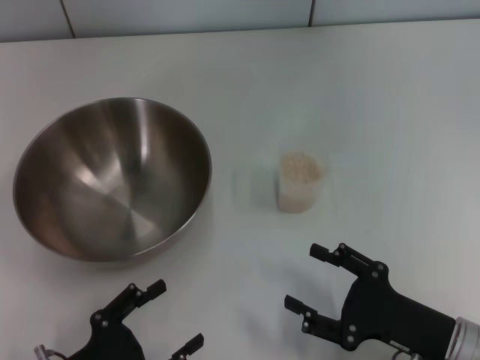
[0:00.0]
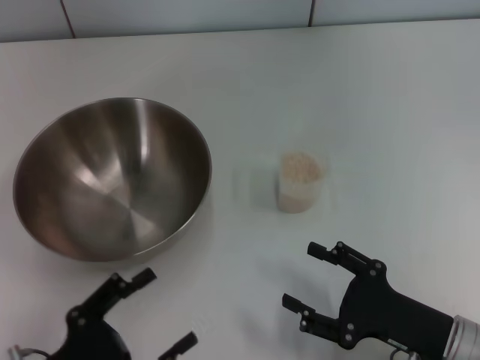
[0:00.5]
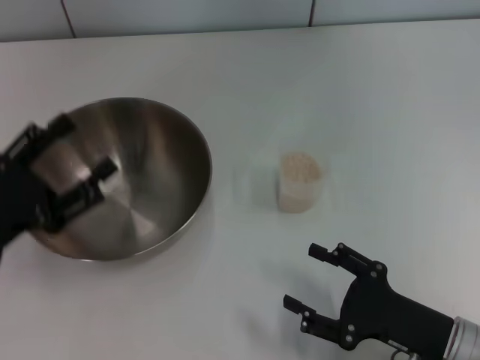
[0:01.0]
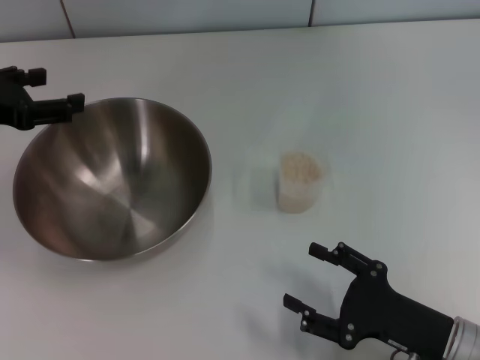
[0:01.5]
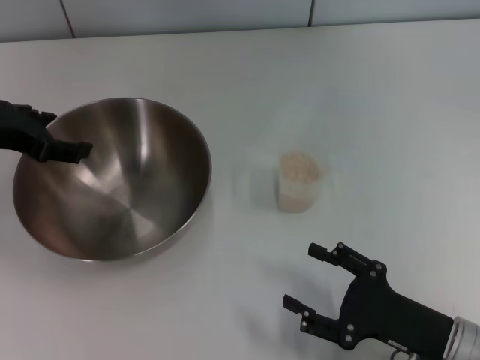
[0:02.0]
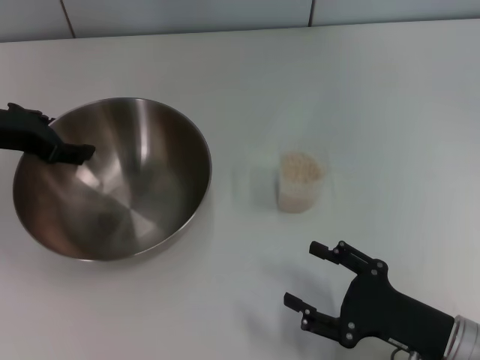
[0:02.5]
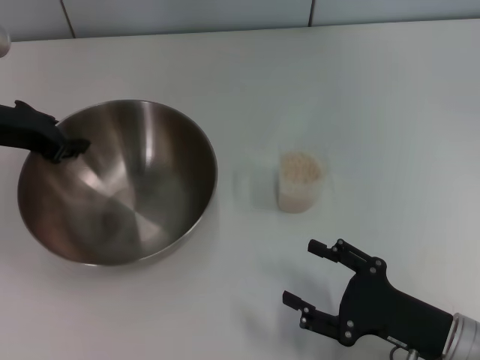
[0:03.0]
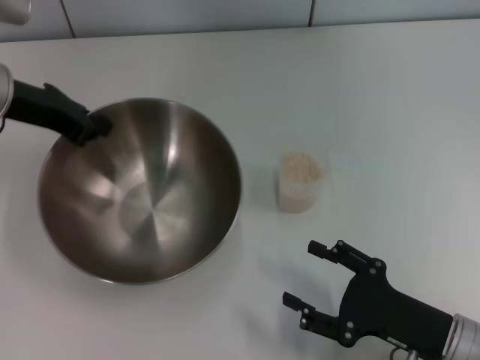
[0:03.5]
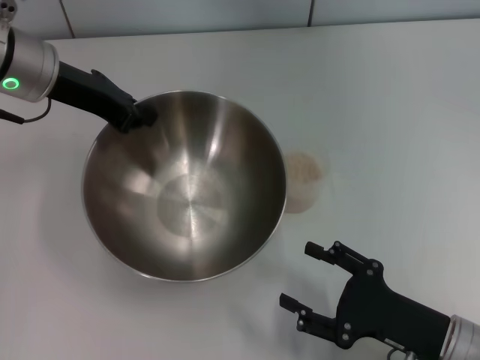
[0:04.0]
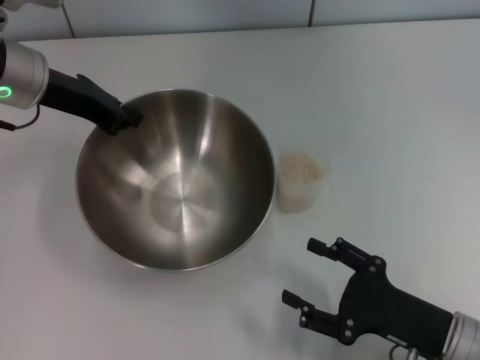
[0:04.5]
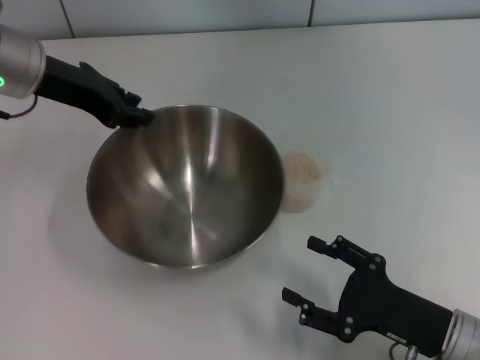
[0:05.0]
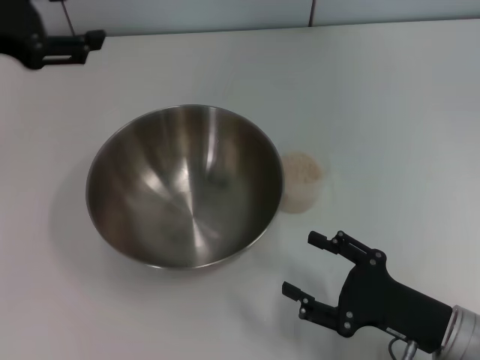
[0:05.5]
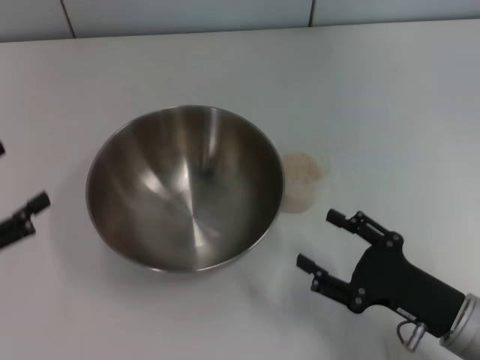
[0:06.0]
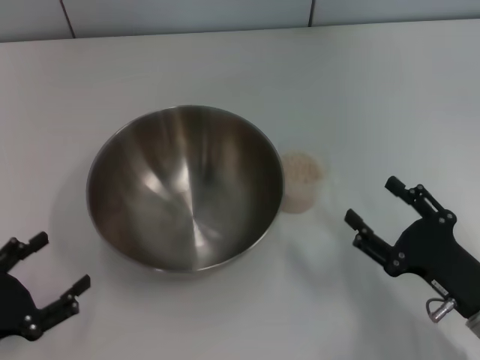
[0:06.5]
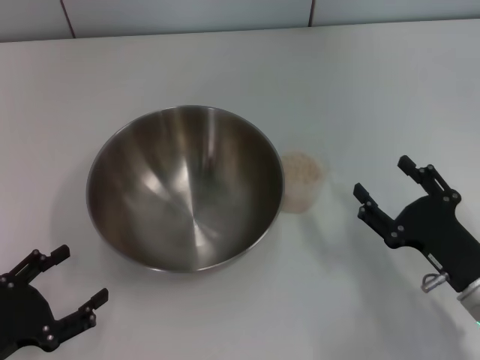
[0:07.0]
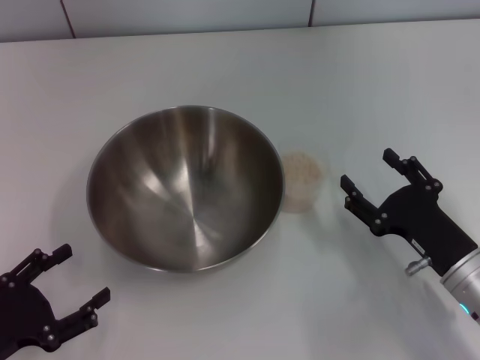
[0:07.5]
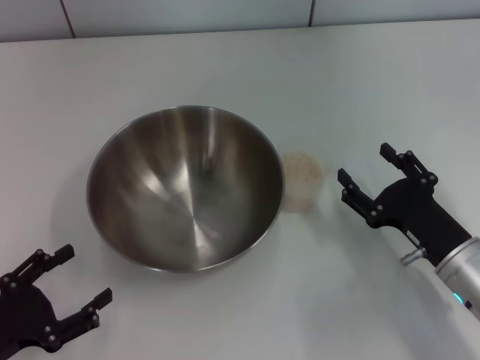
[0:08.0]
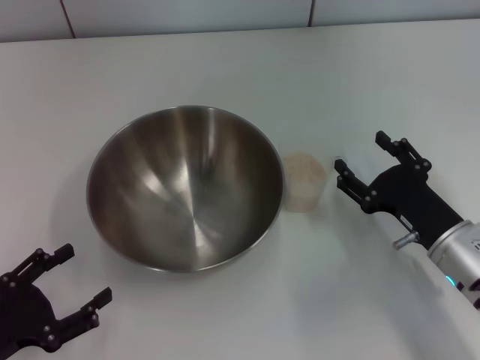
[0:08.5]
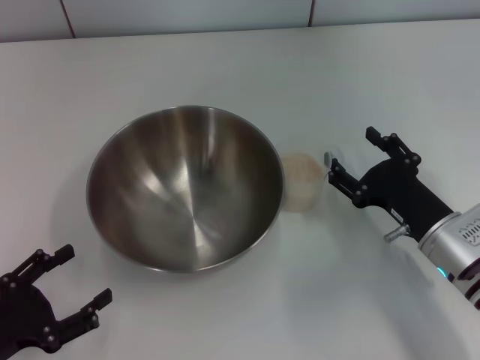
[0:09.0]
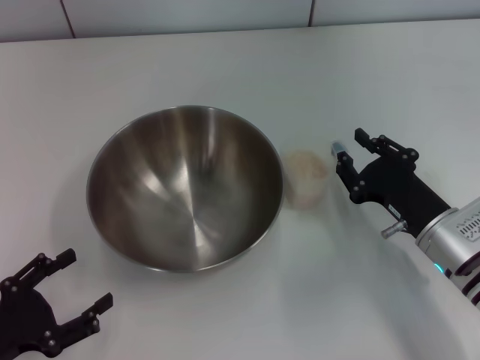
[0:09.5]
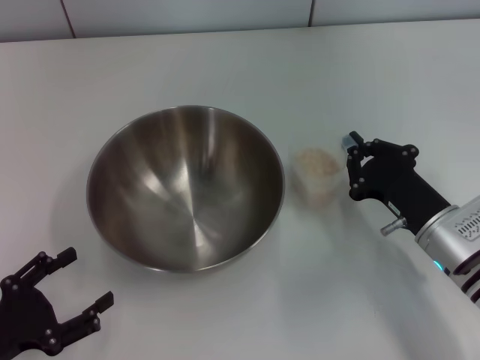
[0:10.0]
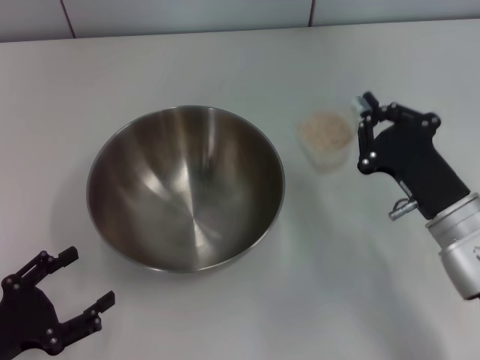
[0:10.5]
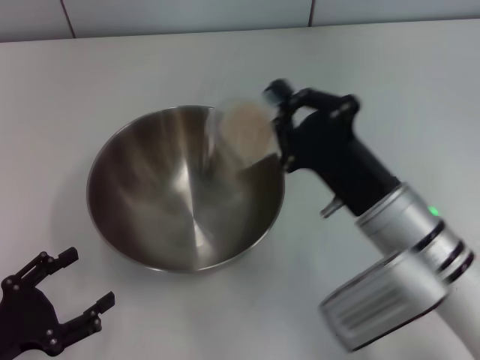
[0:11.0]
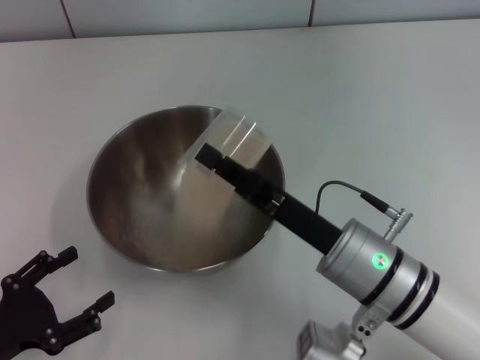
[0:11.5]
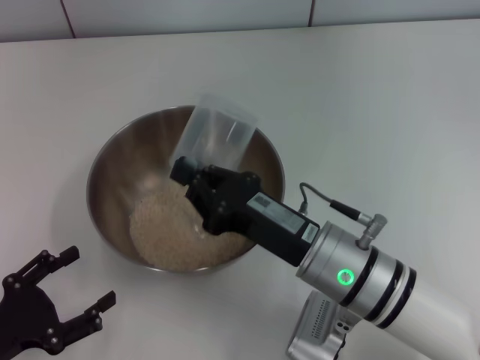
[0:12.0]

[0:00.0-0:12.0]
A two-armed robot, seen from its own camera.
Task of the whole recording: Place the bowl in the middle of the table with one hand and pour the rice from the grain cup into it with the other hand.
Step, 0:00.0 to 0:03.5: Pick up the bowl with the left gripper.
Step, 0:04.0 to 0:05.0: Place the bowl in the center of view with the left gripper.
Step, 0:05.5 to 0:10.5: Pick up the cup with rice in it with the right gripper.
0:00.0 to 0:02.0: The left gripper moves forward and upward, approximately 30 cm.
0:02.0 to 0:04.0: The left gripper is displaced to the right and forward by roughly 10 cm, and closes.
0:04.0 to 0:06.0: The left gripper heads backward, to the left and downward, covering some 25 cm, and opens its fingers.
0:06.0 to 0:08.0: The left gripper goes approximately 10 cm downward and backward.
0:08.0 to 0:10.0: The right gripper closes up.
0:10.0 to 0:12.0: The right gripper moves to the left, approximately 10 cm.

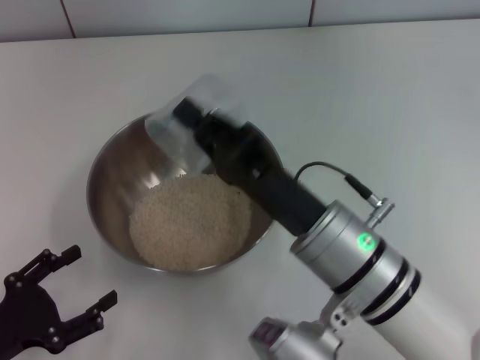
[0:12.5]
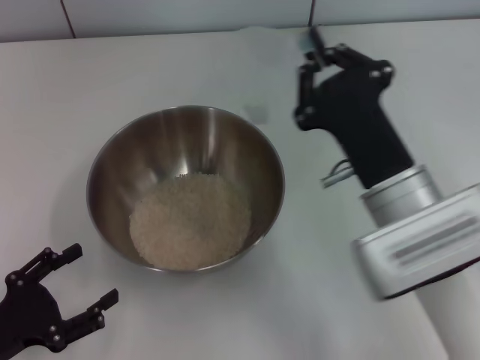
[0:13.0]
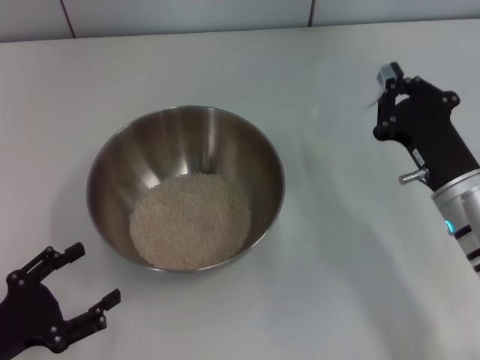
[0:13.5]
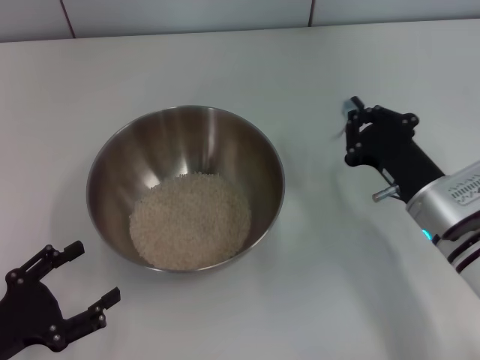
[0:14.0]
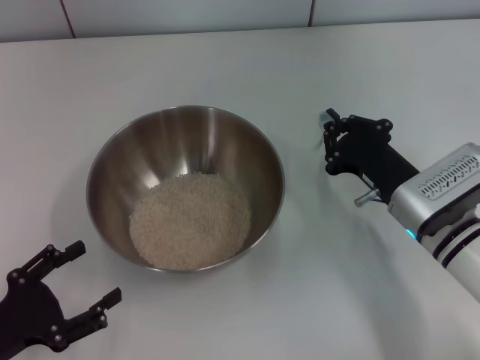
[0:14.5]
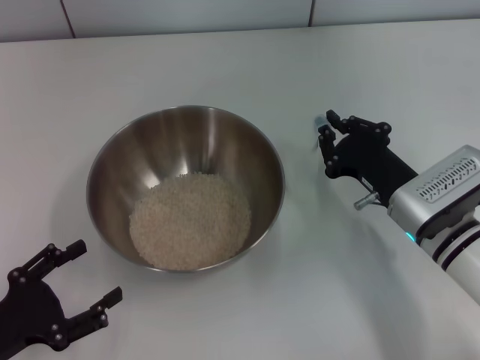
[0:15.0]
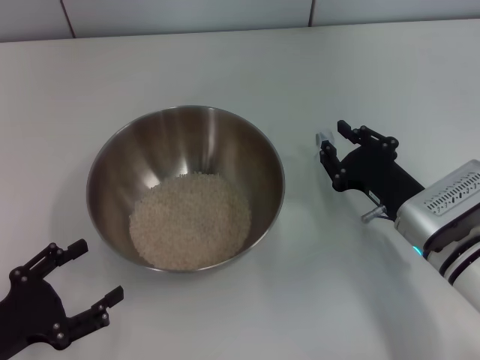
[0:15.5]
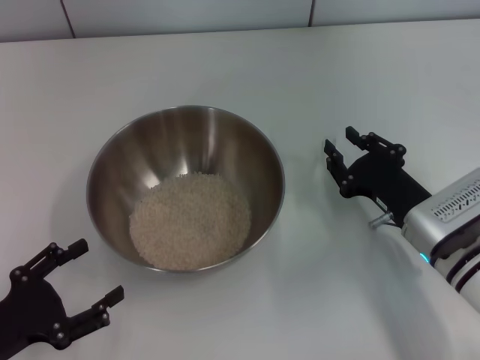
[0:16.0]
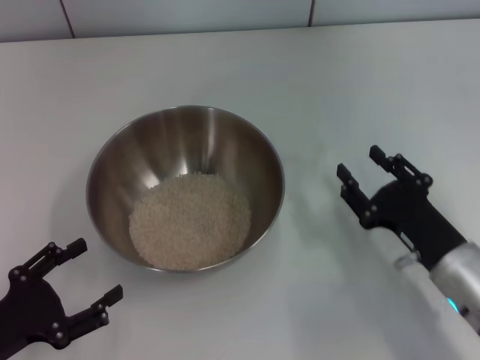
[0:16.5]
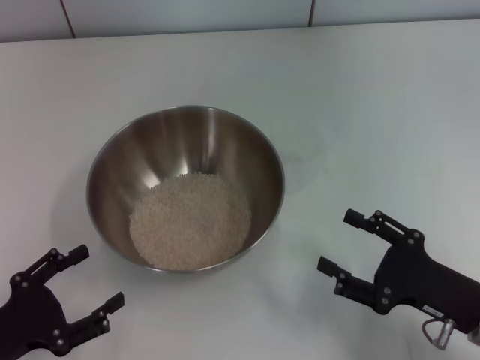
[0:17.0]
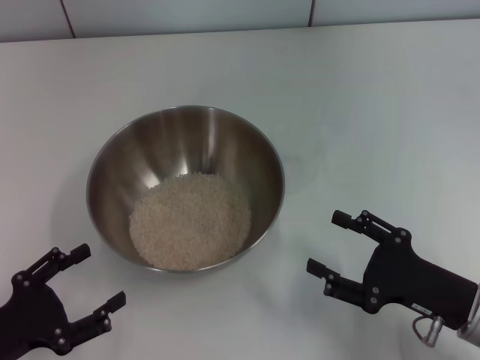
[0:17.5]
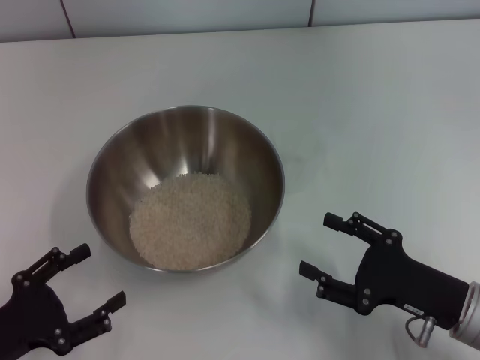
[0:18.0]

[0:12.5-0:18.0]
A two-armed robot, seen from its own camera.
Task of the whole recording: Place the bowl in the middle of the table with one hand and pour the rice from the grain cup into it with the other hand.
Step, 0:13.0 to 0:16.0: Place the cup on the table with the right gripper.
0:12.5 to 0:14.5: The right gripper goes some 15 cm to the right, downward and forward.
0:14.5 to 0:16.0: The right gripper opens up.
0:16.0 to 0:18.0: The right gripper travels backward by roughly 10 cm, and opens up.
